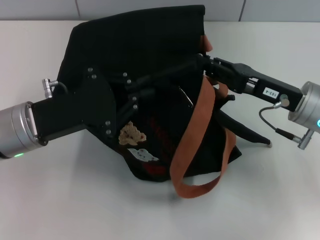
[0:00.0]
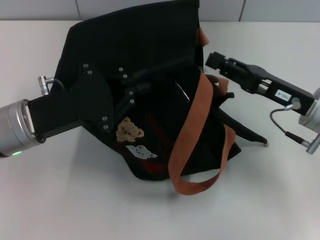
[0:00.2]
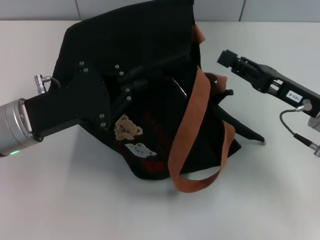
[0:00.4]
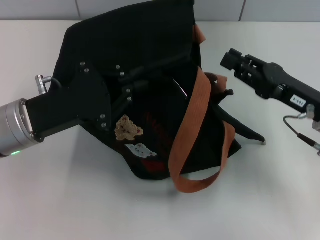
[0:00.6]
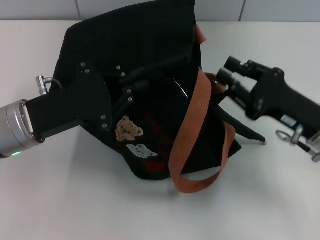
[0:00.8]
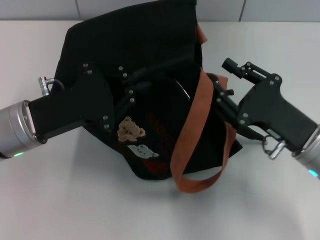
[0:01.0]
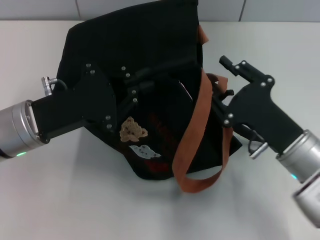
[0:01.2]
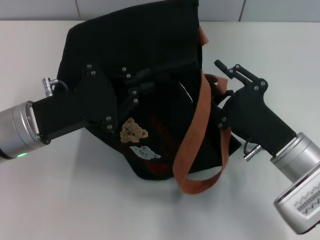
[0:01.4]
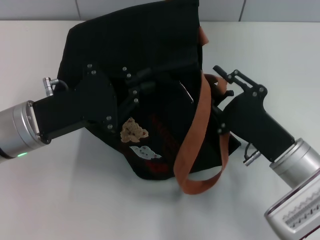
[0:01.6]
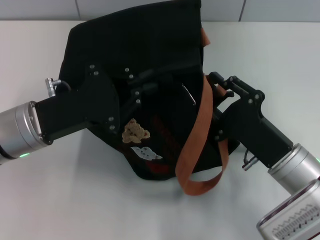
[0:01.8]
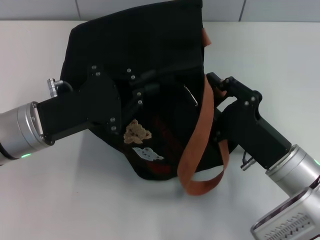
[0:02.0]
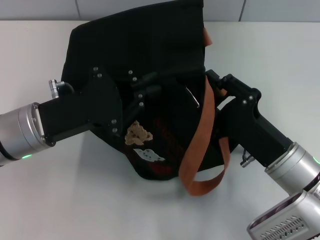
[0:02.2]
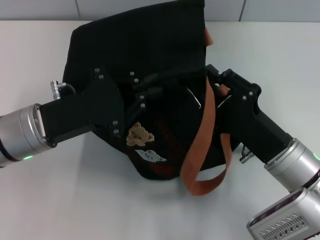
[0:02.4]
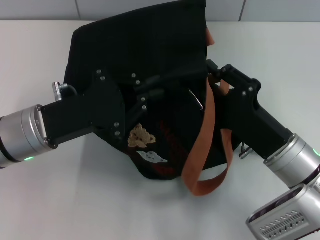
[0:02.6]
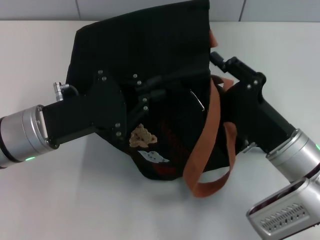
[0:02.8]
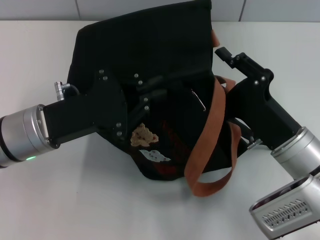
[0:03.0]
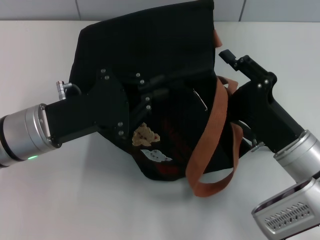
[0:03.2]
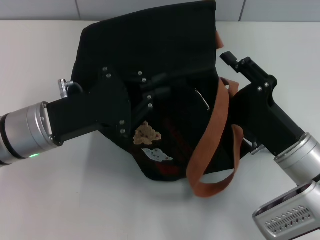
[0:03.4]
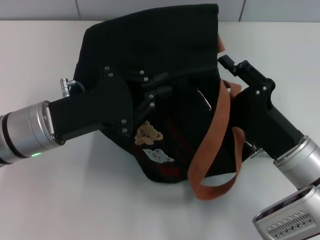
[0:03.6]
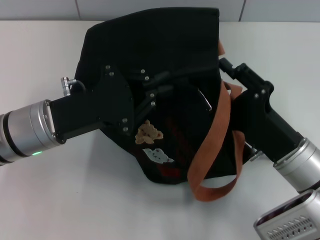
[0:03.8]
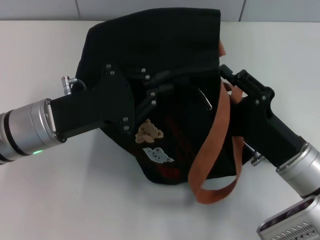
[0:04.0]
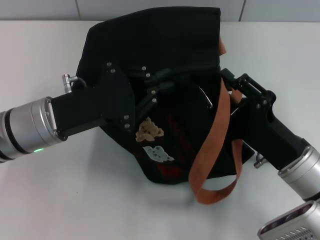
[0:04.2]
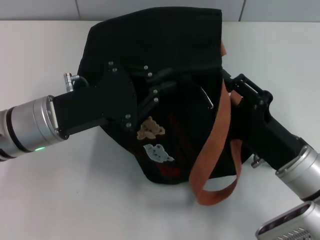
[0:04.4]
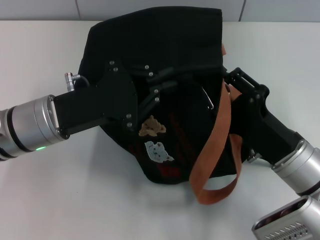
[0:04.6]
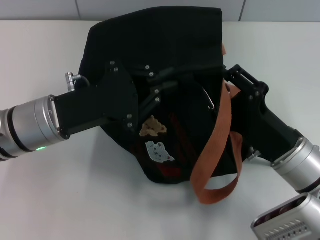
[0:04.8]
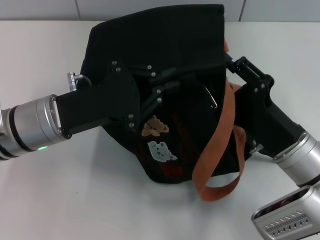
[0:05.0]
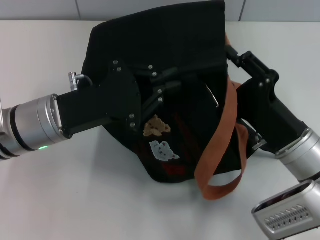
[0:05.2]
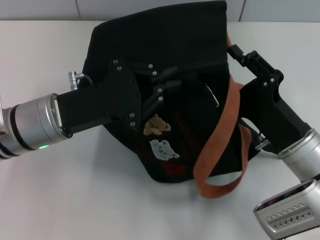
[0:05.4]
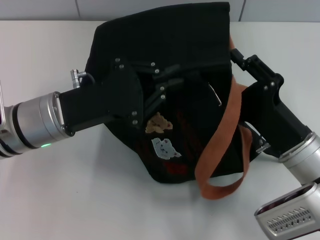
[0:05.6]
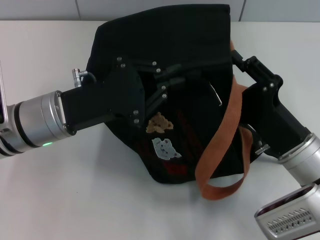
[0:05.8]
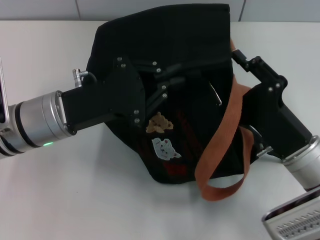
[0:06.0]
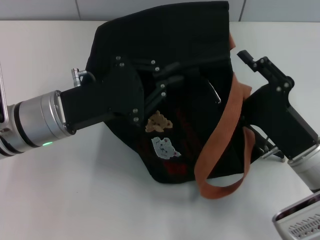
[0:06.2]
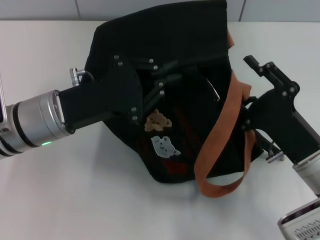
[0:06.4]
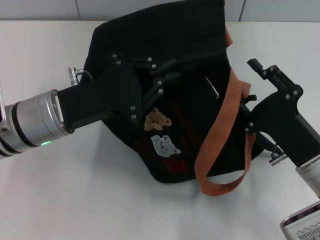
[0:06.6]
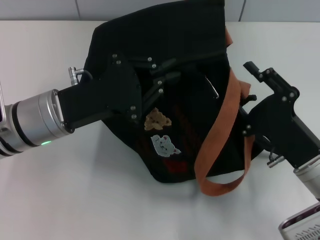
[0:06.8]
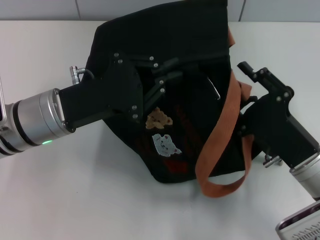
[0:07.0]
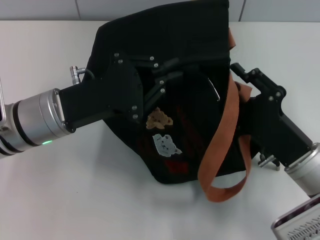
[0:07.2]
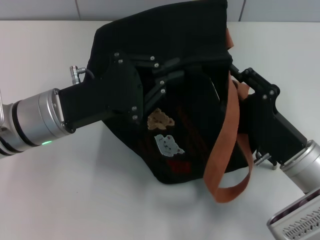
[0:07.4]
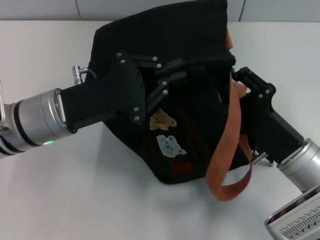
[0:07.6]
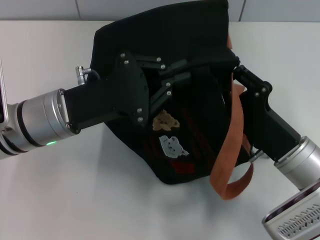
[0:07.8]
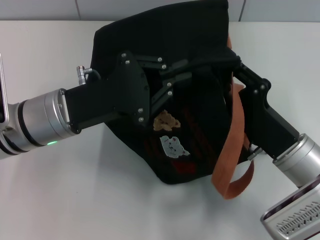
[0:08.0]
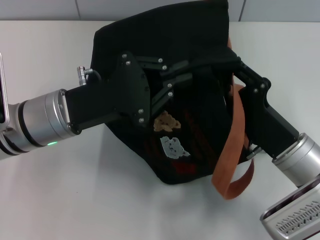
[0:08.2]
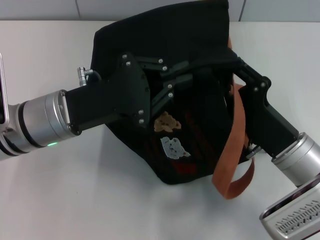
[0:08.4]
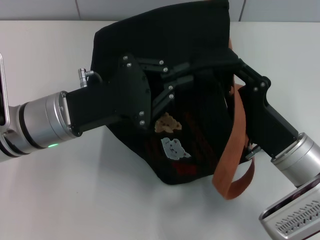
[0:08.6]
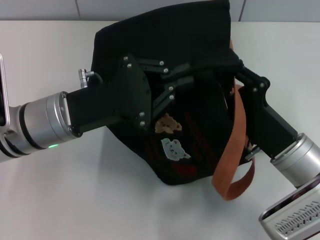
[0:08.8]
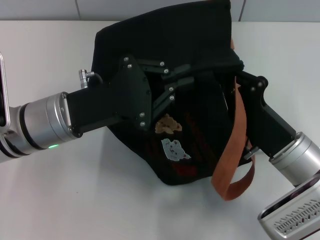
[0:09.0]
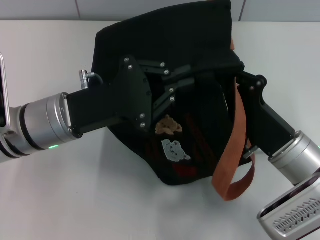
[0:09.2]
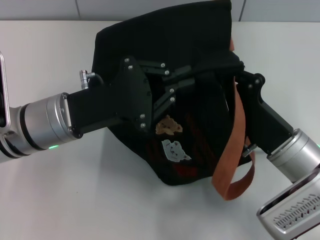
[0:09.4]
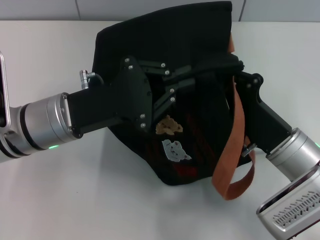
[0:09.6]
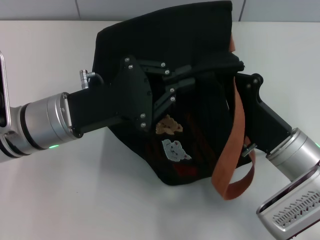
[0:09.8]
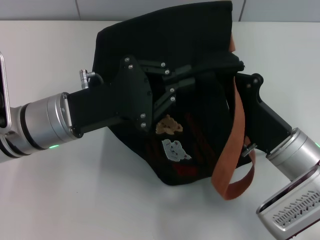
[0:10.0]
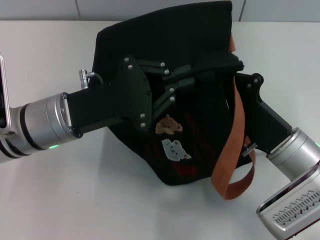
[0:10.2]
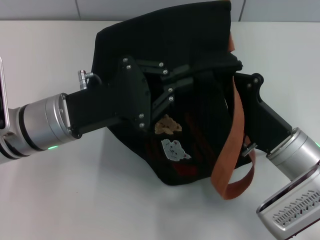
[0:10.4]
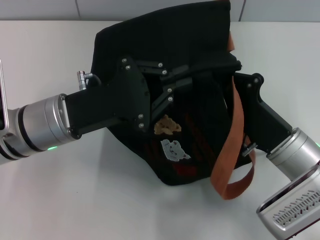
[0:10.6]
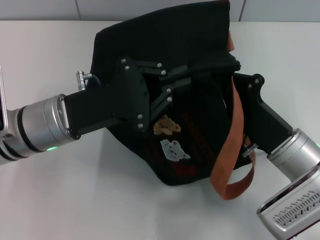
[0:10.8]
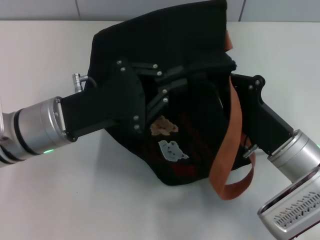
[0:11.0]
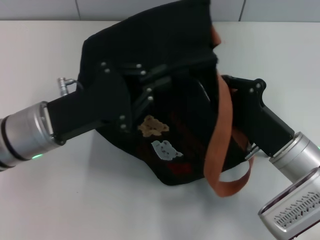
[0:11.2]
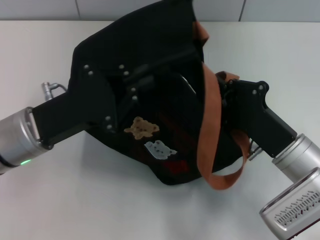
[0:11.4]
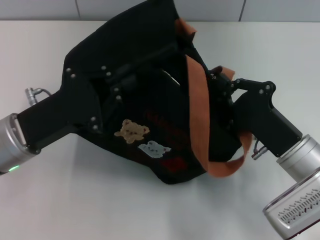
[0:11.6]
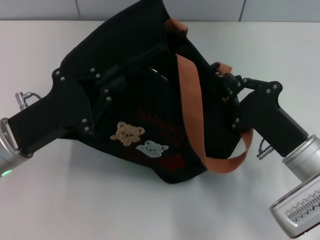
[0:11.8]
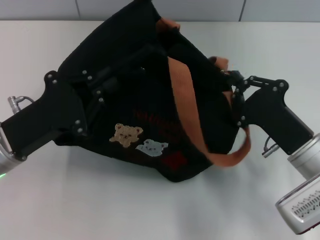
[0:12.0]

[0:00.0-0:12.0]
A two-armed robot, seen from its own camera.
0:00.0 to 0:01.6: The right gripper heads backward, covering about 5 cm.
0:04.4 to 0:07.6: The grippers move only a little.
0:07.6 to 0:09.0: Neither gripper changes place.
0:09.0 to 0:10.4: The right gripper closes up.
0:10.4 to 0:12.0: The left gripper moves to the left, roughly 5 cm.

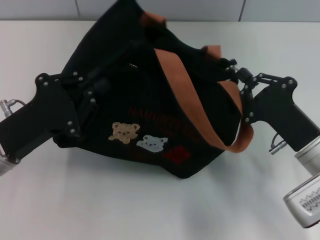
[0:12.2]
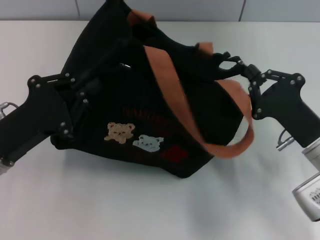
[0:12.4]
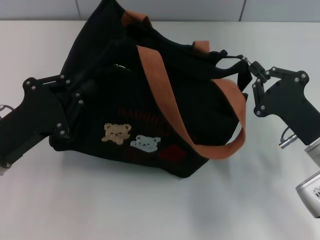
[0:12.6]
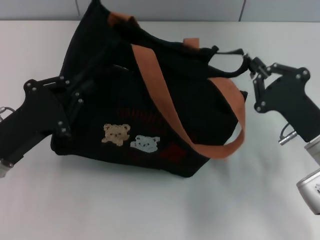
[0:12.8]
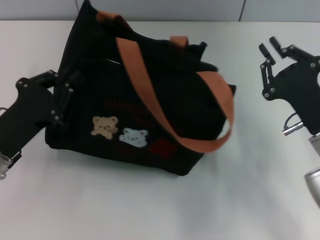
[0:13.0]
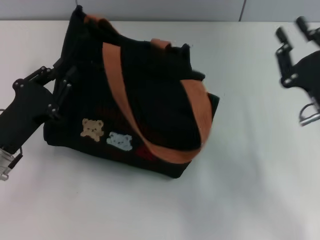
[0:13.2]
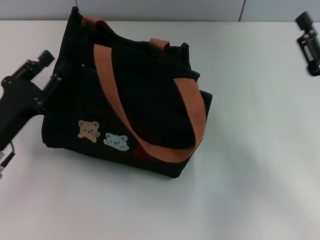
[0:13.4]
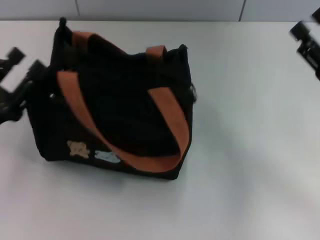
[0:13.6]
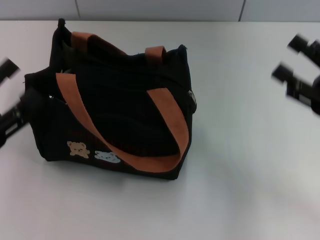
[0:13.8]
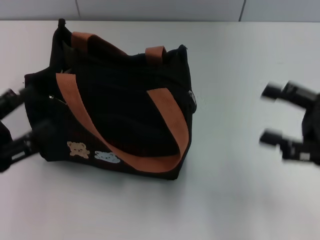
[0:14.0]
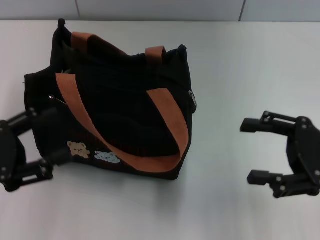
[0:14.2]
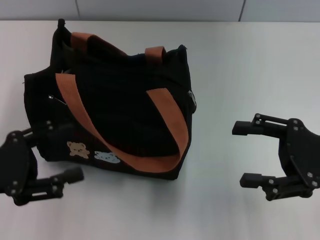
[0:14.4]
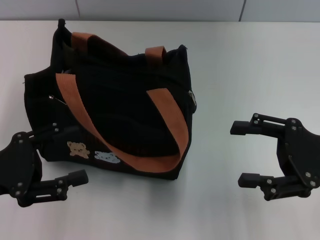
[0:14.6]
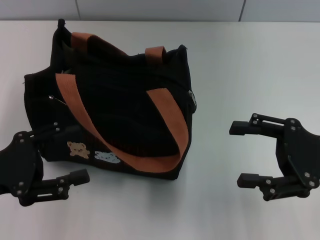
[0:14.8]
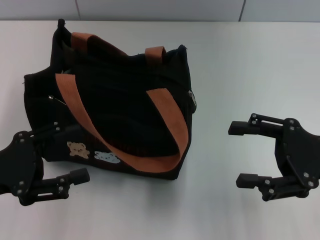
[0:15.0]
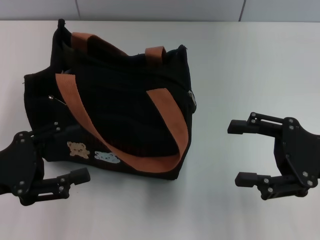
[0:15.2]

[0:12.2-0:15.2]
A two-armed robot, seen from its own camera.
Step, 0:13.2 to 0:13.6: Grab the bag with your left hand.
0:12.2 to 0:13.8: The left gripper is displaced to the left by roughly 5 cm, and opens. The right gripper heads to the right and upward, covering about 10 cm, and opens.
